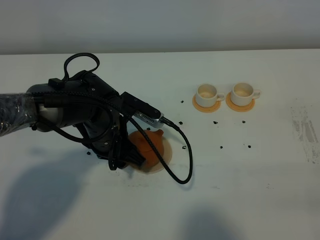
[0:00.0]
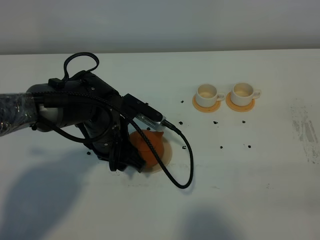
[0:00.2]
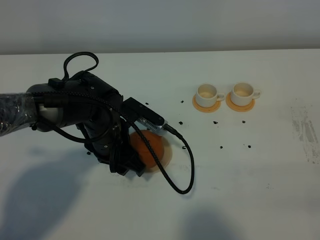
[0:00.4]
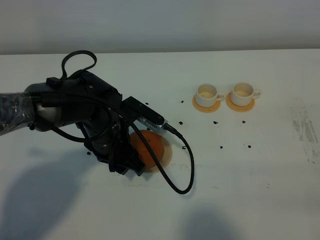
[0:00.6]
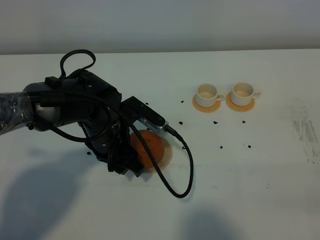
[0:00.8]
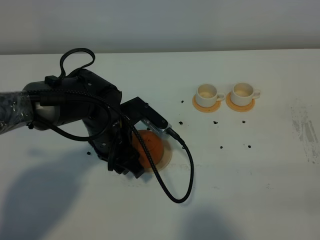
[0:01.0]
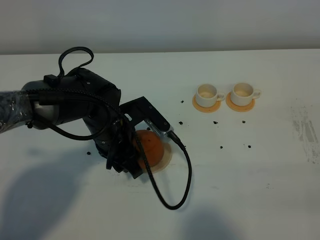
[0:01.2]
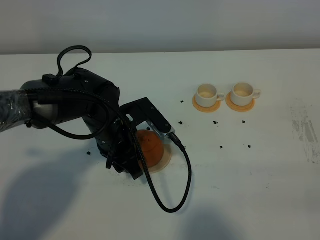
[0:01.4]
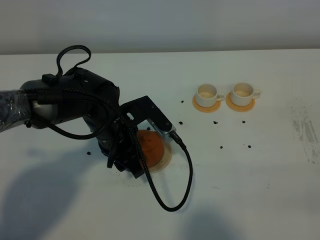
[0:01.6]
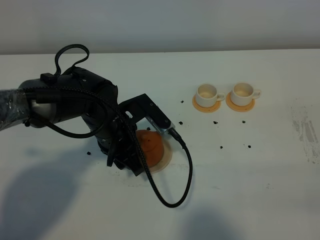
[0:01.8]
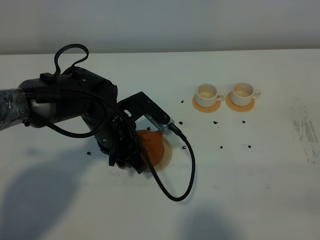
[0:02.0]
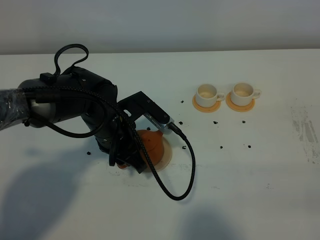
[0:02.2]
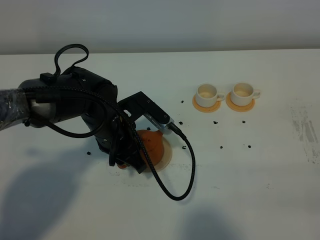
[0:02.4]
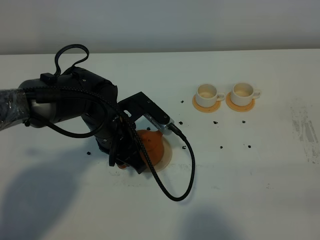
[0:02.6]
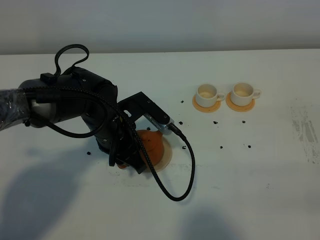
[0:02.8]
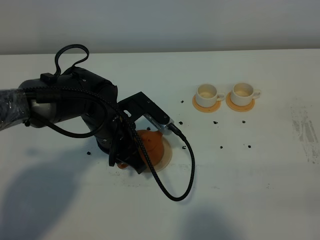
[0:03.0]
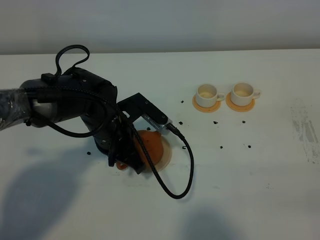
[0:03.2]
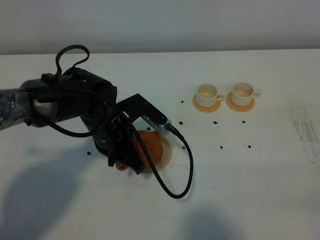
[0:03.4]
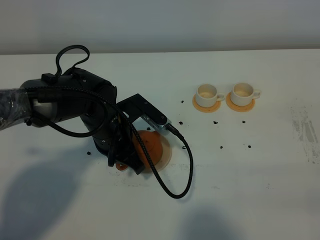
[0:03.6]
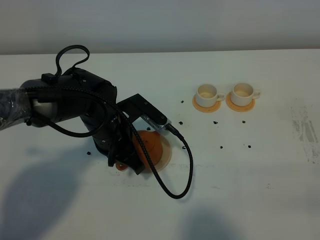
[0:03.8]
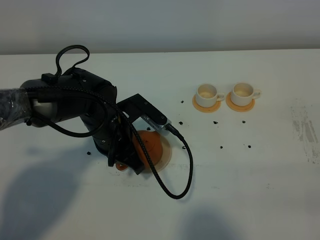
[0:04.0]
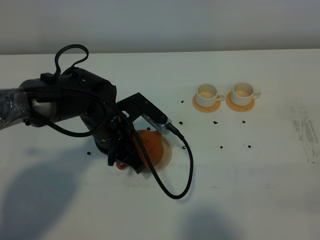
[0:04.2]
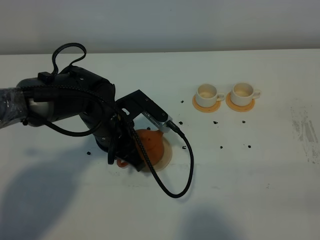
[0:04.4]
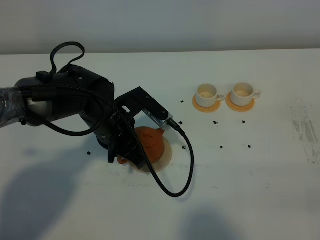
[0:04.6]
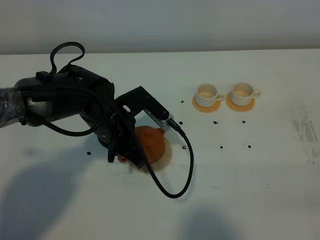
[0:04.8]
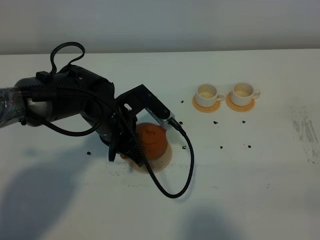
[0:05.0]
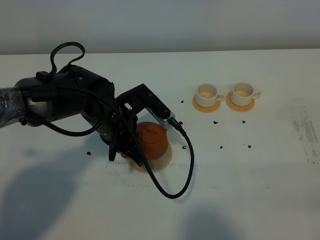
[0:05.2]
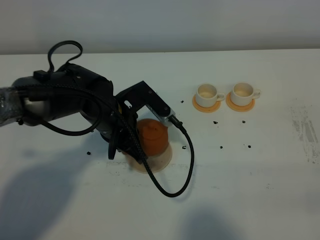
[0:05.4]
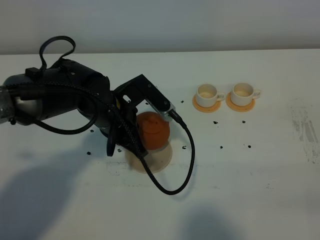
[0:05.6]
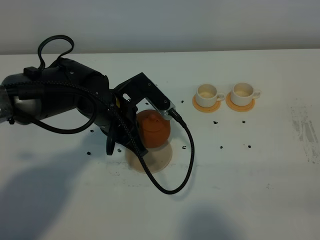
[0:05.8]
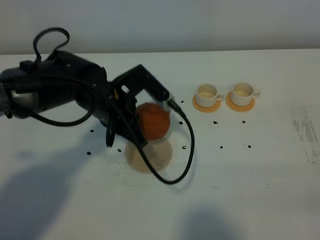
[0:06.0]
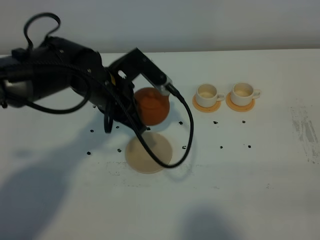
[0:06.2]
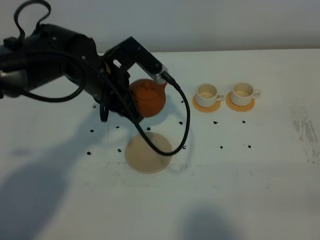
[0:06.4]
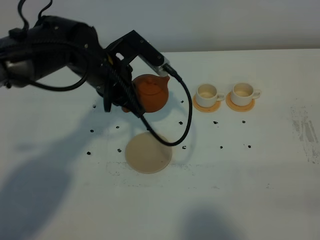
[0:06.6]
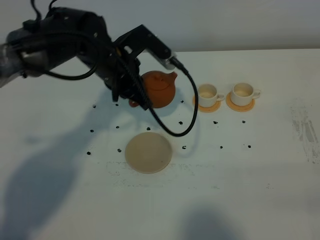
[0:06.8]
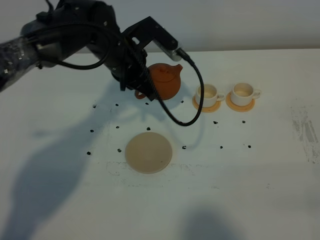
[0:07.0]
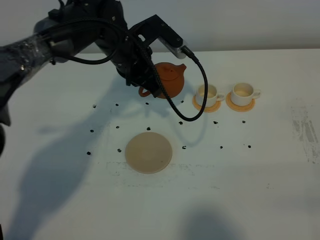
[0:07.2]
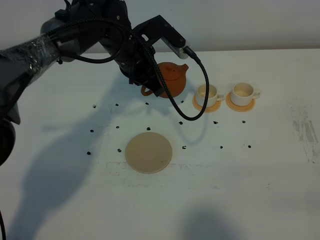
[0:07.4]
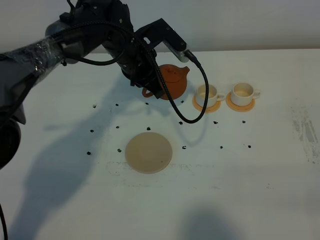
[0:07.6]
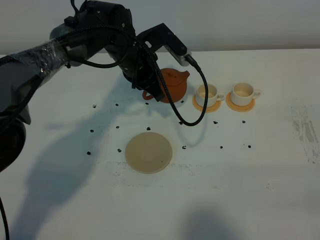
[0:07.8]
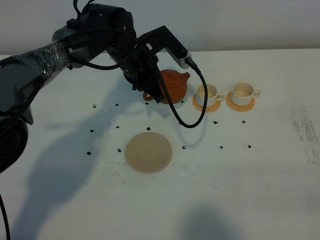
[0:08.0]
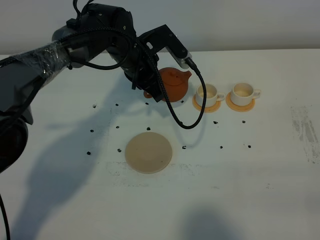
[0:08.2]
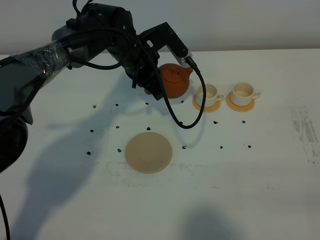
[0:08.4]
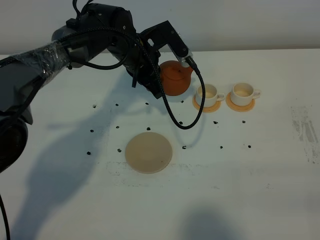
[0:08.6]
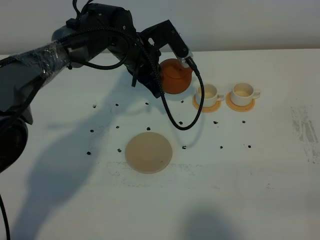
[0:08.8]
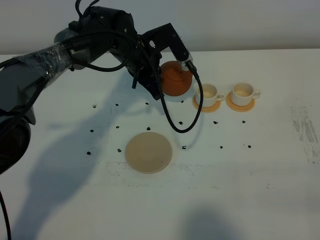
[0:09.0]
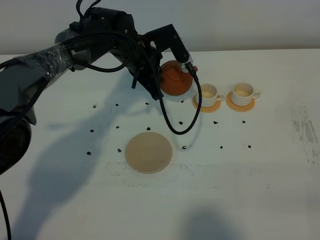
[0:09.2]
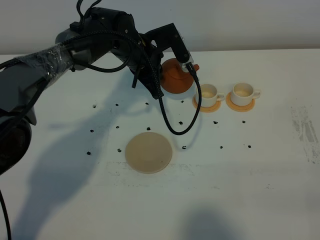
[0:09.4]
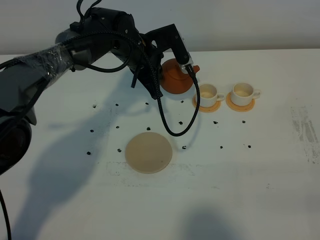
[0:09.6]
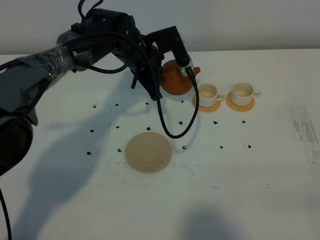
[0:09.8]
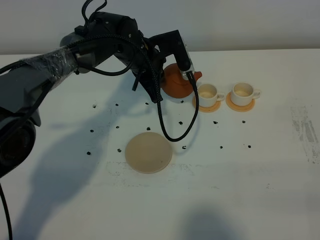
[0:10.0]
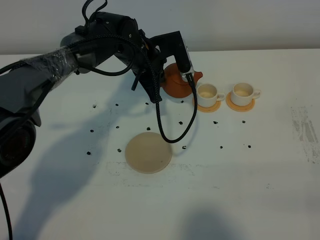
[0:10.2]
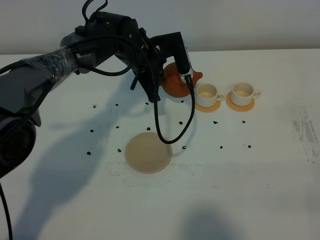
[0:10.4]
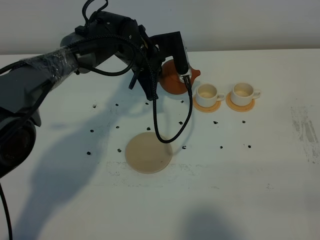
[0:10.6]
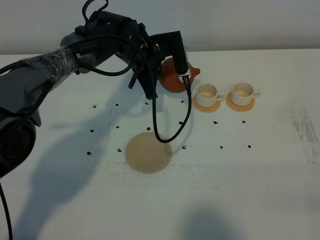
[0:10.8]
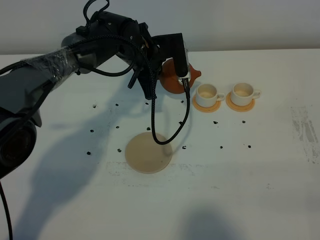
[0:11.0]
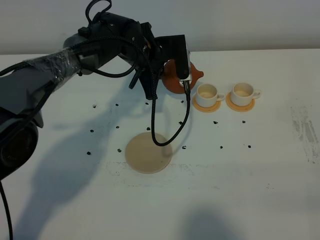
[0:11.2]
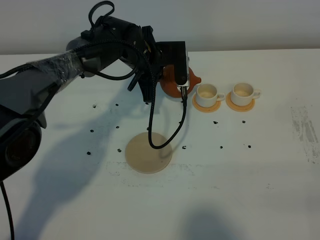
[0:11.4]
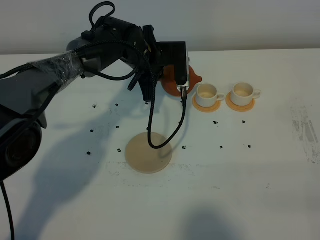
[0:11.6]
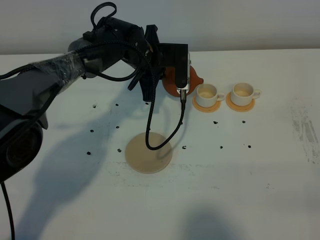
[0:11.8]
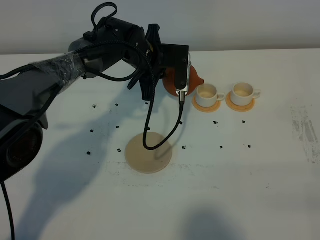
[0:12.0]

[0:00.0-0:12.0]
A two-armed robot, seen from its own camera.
Task of the whole recording: grasp the brown teapot and pour the tea into the two white teacups one by one, put the brown teapot back in its original place.
Step, 0:00.0 to 0:05.0: Pick up the teapot with the left gripper.
0:01.6 to 0:03.0: The left gripper closes up.
0:03.0 to 0:04.4: Both grippers stay put.
0:04.4 to 0:06.0: The grippers stay close to where they were, moving slightly.
0:06.0 to 0:07.6: The left gripper heads forward, covering about 10 cm.
0:07.6 to 0:09.0: There are only small adjustments of the grippers.
0:09.0 to 0:10.4: The grippers make only small movements.

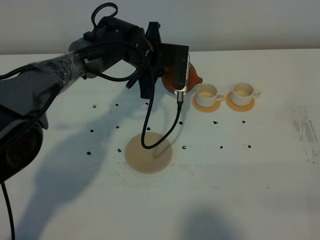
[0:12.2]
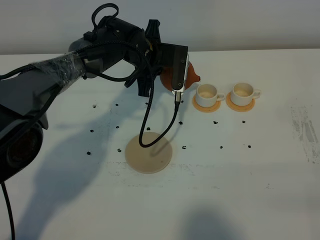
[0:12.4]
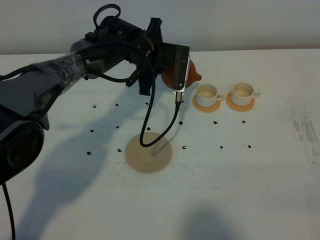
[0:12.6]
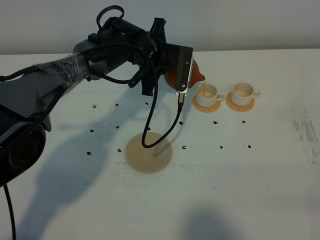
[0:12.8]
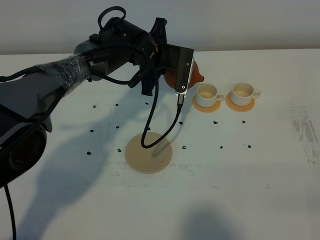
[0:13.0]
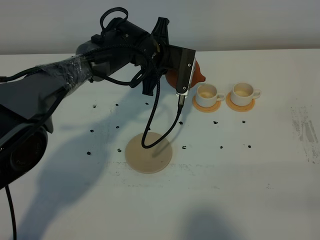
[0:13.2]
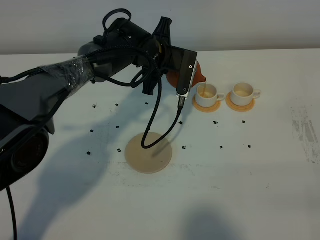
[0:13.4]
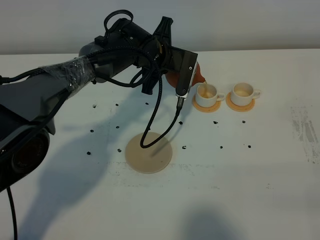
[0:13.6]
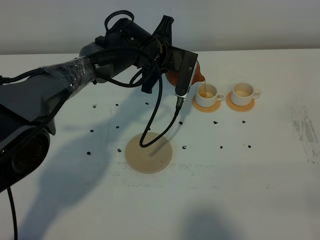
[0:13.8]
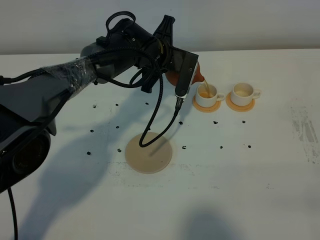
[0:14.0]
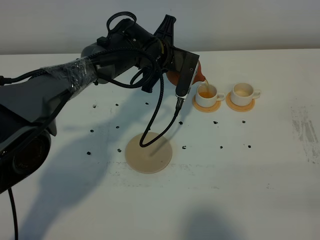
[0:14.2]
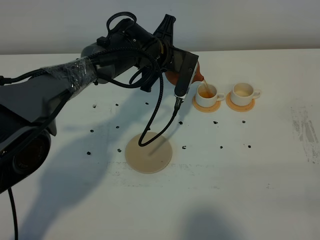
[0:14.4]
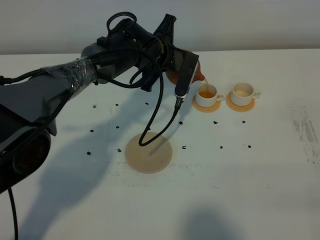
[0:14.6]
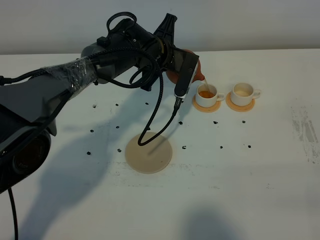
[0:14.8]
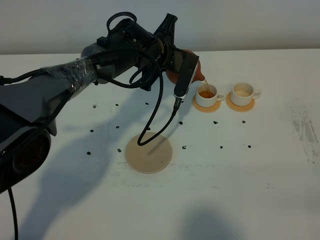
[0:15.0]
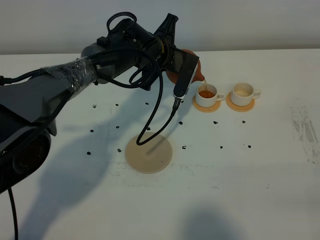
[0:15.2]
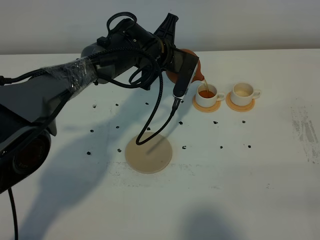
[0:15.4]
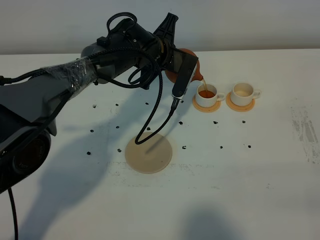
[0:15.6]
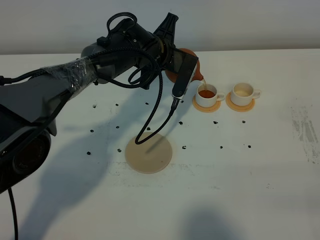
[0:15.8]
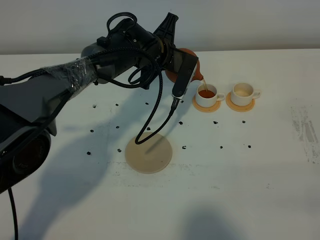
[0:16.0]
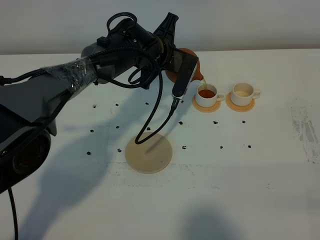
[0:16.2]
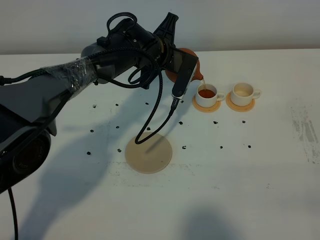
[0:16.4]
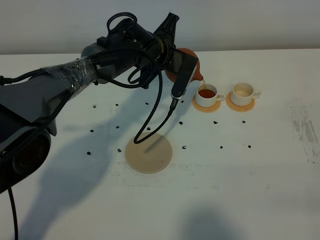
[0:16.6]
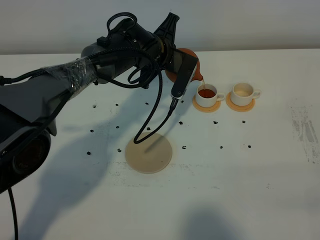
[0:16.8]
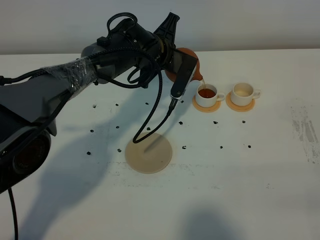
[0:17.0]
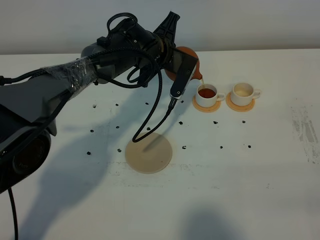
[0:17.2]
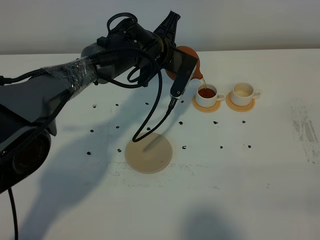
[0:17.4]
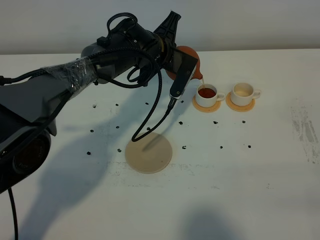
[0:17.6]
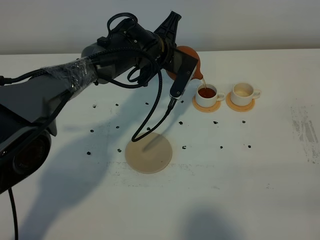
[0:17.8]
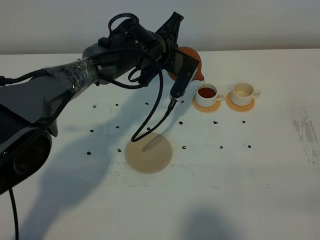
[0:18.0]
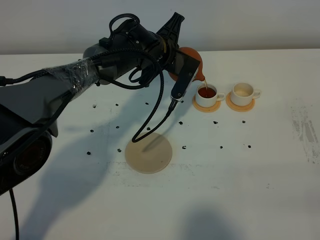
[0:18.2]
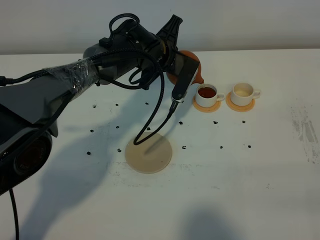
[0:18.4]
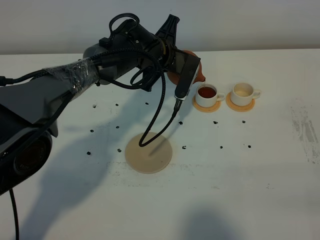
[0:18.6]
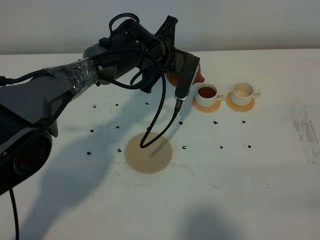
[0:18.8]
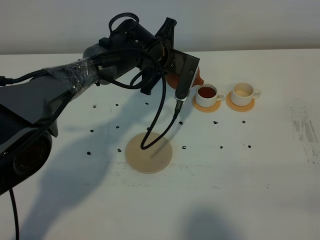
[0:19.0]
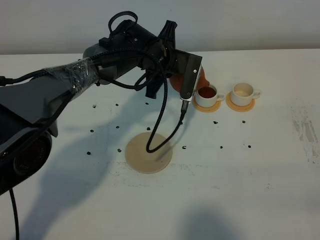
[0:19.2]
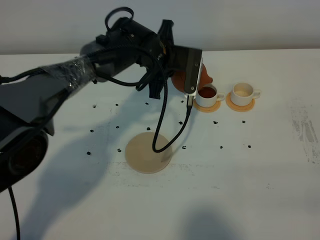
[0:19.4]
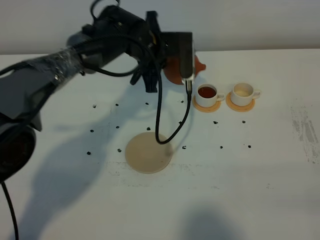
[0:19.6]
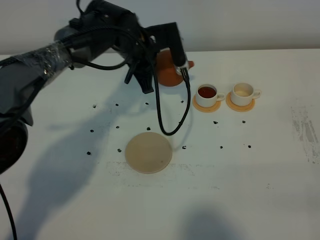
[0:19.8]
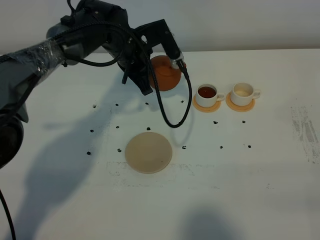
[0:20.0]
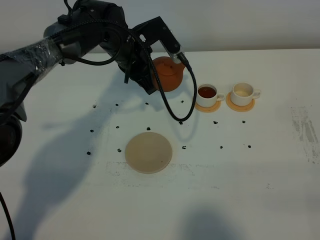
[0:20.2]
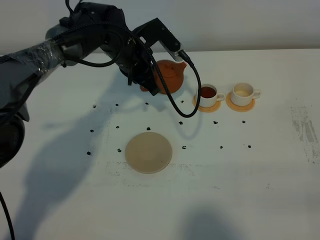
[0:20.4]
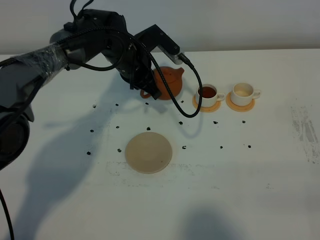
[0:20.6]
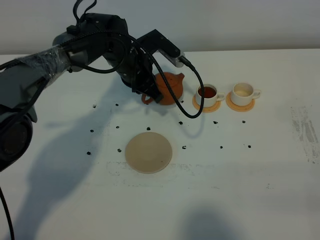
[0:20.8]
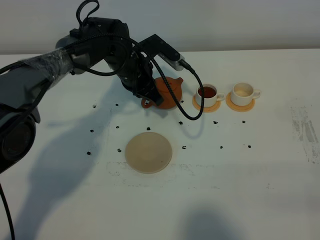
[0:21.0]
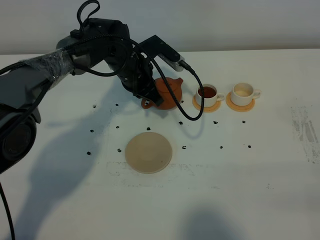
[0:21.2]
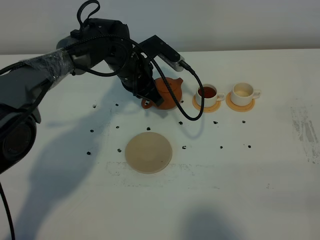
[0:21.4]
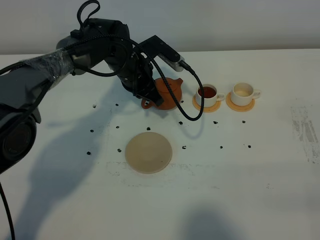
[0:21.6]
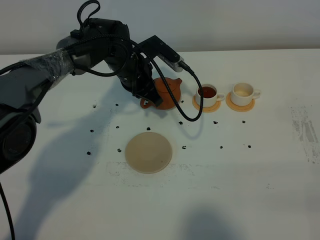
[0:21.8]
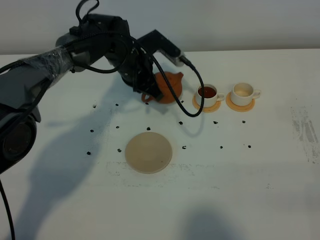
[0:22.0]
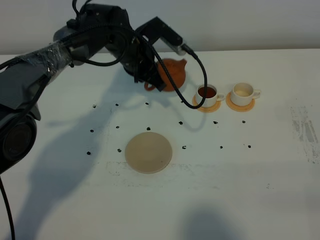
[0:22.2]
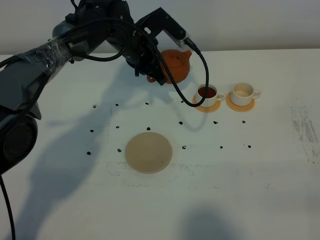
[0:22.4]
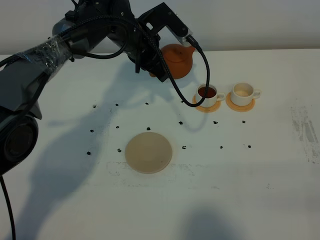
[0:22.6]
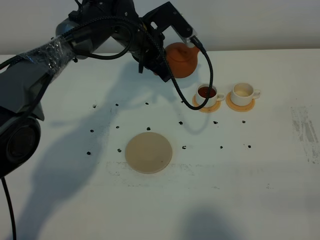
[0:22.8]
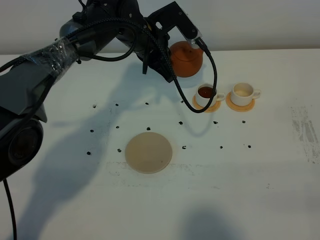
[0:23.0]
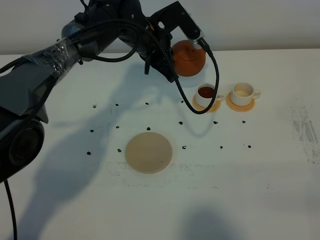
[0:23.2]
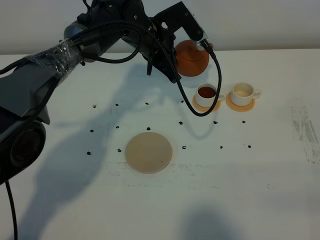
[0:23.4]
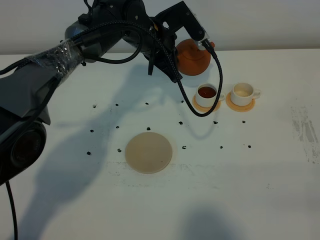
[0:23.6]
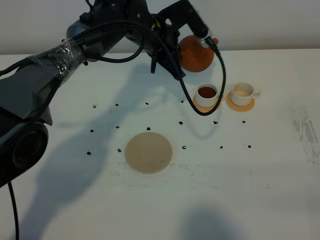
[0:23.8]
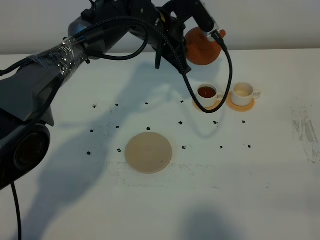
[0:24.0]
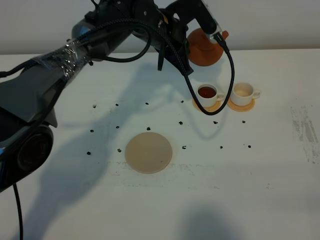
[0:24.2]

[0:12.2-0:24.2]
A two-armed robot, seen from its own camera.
Task of the whole recording: grasp the brown teapot and pour the tea into the two white teacups one by one, put the brown teapot back in its original place.
0:12.2 to 0:13.8: The grippers make only small movements.
0:13.8 to 0:15.2: The grippers move only a little.
0:15.2 to 0:16.6: The two grippers keep their place.
0:16.6 to 0:18.2: Both grippers stay put.
0:18.2 to 0:19.8: The left gripper shifts by roughly 5 cm.
0:19.8 to 0:21.2: The left gripper goes some 5 cm downward.
0:21.2 to 0:22.6: The left gripper goes roughly 5 cm upward.
0:22.6 to 0:24.2: The left gripper moves roughly 5 cm.
